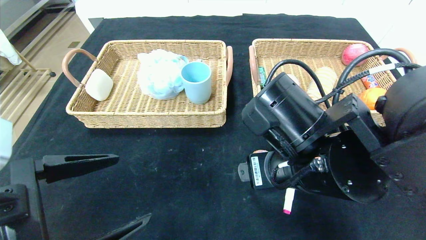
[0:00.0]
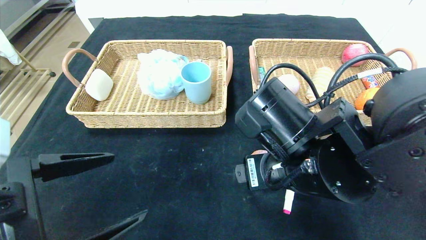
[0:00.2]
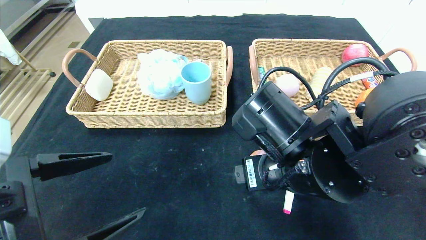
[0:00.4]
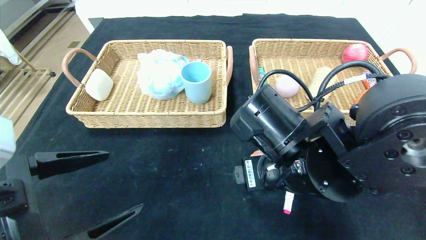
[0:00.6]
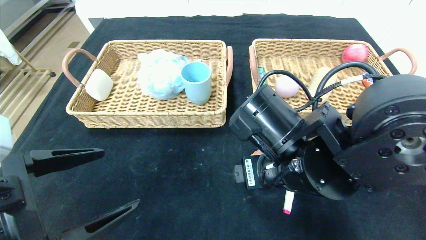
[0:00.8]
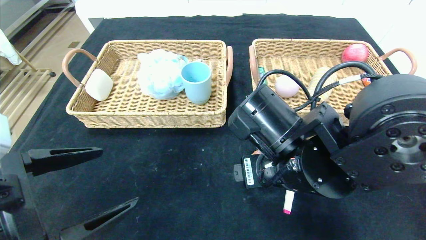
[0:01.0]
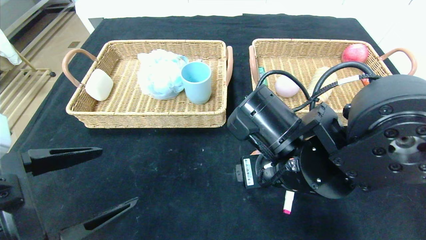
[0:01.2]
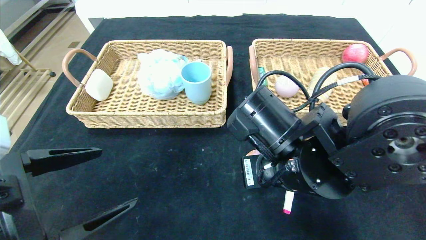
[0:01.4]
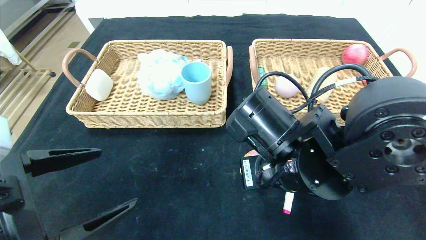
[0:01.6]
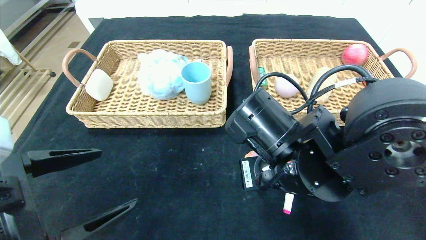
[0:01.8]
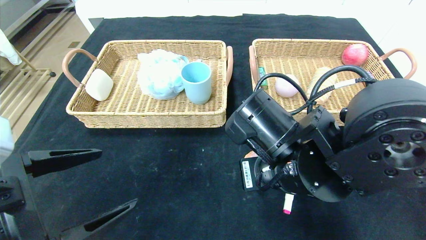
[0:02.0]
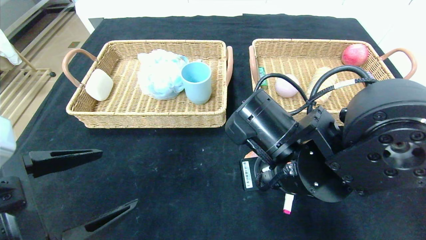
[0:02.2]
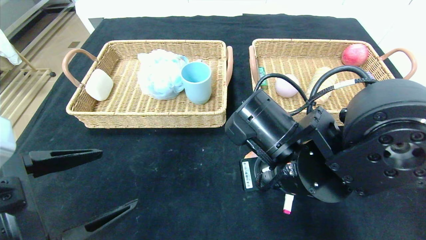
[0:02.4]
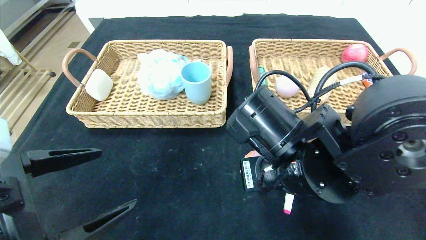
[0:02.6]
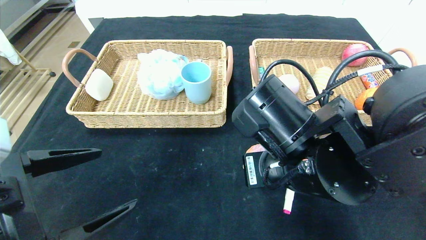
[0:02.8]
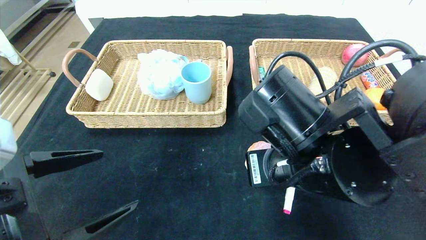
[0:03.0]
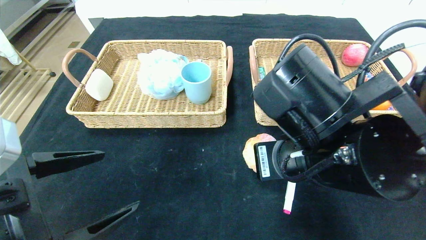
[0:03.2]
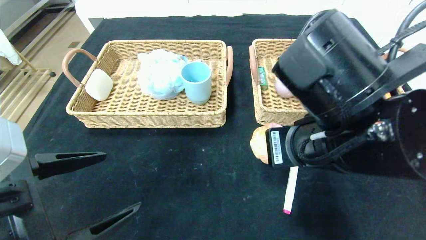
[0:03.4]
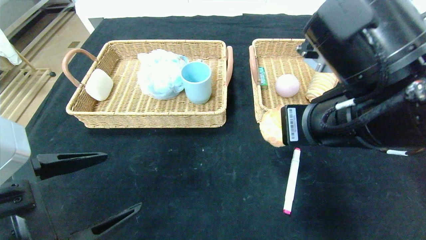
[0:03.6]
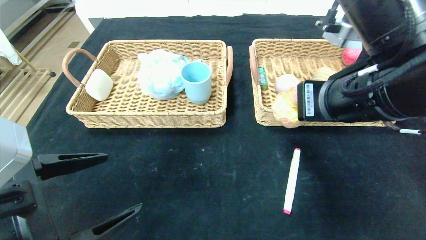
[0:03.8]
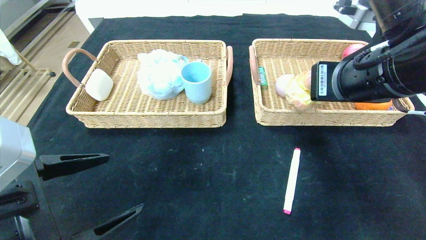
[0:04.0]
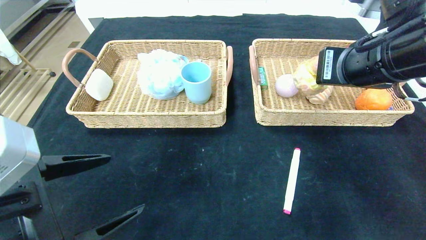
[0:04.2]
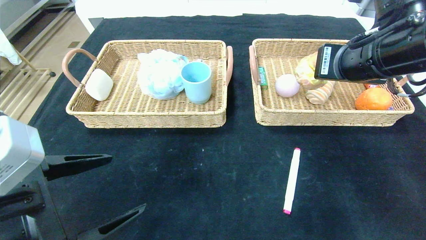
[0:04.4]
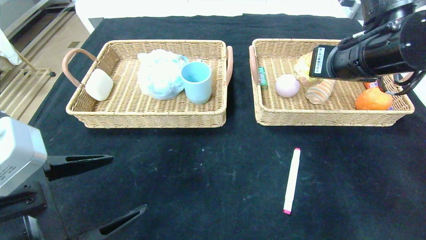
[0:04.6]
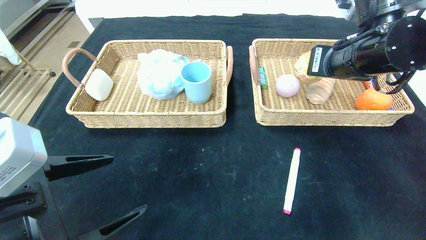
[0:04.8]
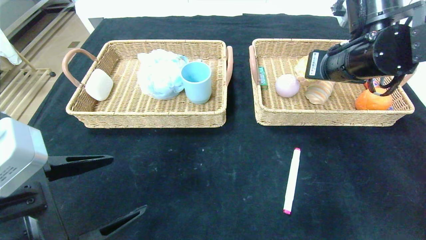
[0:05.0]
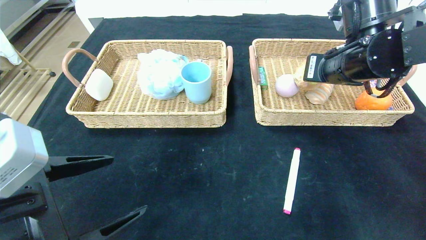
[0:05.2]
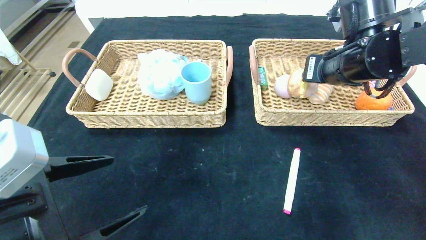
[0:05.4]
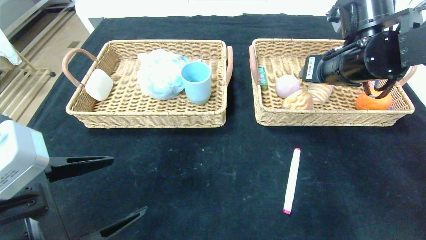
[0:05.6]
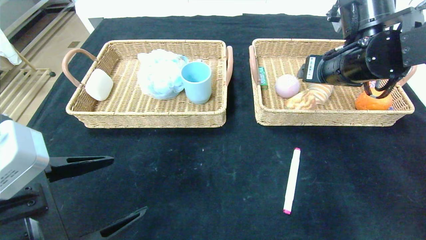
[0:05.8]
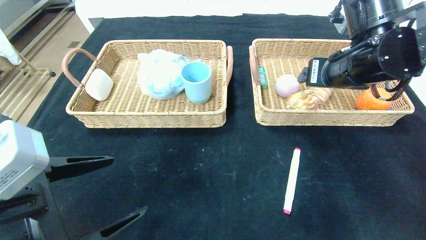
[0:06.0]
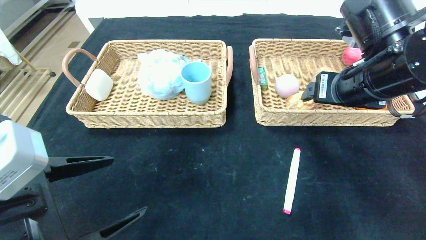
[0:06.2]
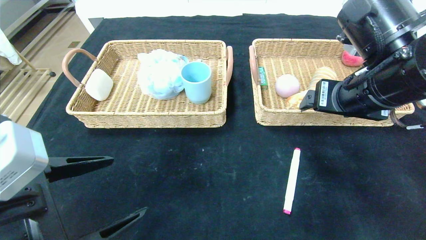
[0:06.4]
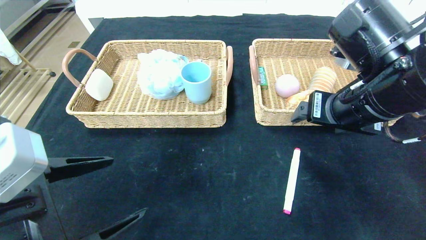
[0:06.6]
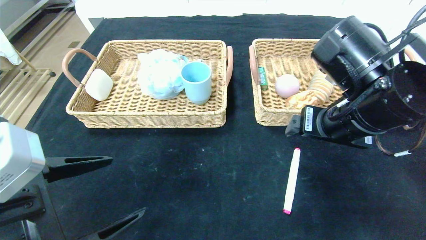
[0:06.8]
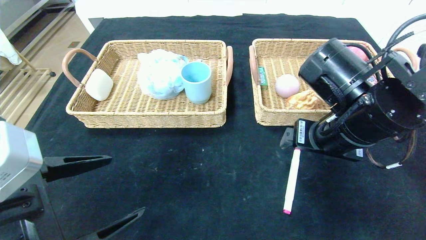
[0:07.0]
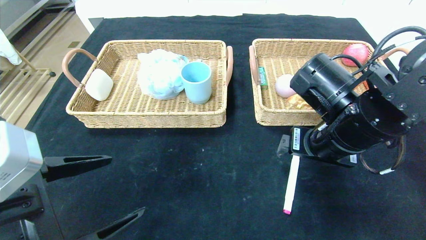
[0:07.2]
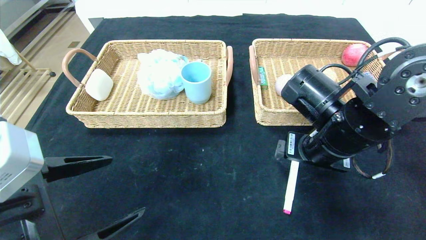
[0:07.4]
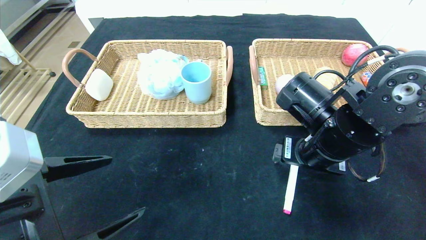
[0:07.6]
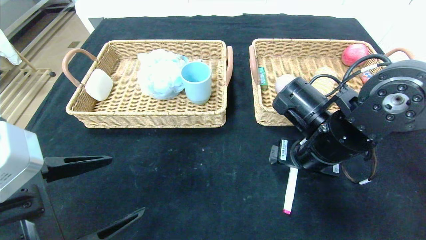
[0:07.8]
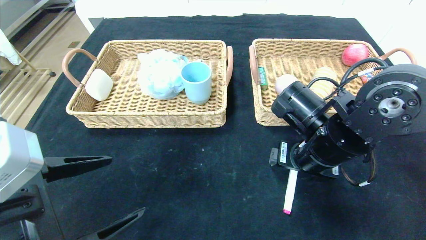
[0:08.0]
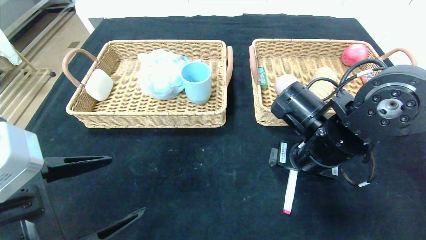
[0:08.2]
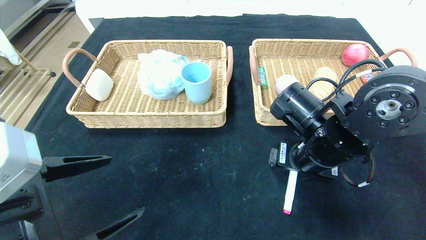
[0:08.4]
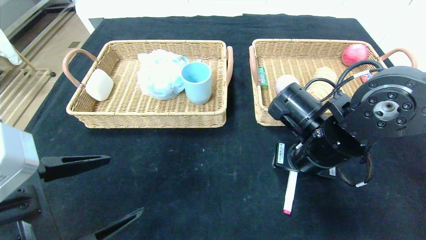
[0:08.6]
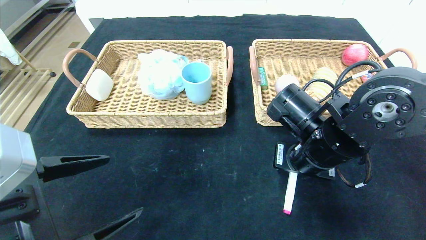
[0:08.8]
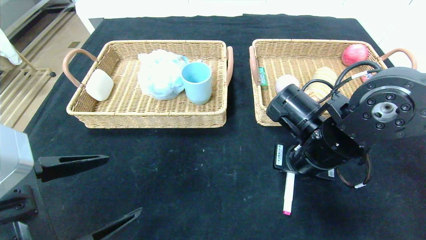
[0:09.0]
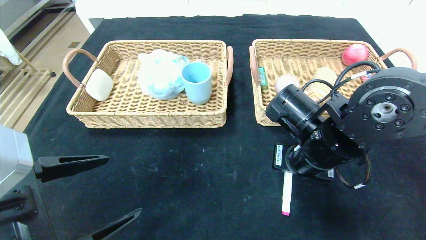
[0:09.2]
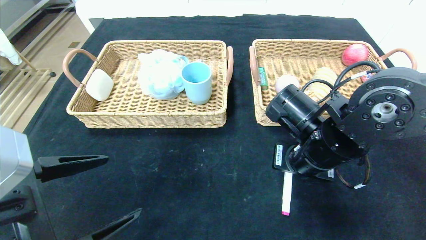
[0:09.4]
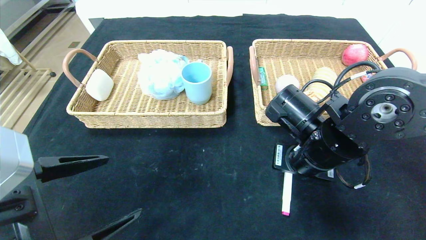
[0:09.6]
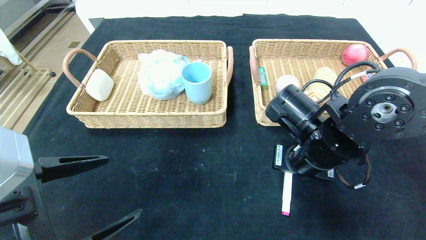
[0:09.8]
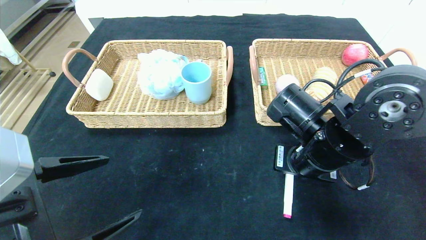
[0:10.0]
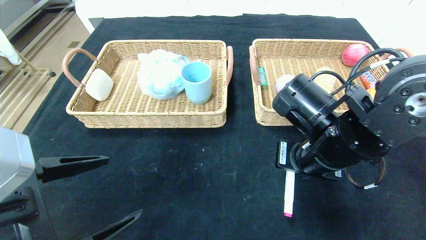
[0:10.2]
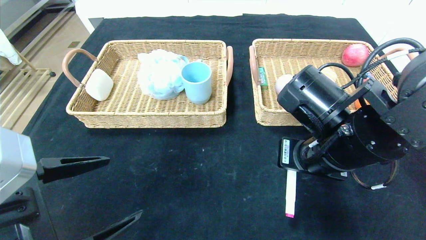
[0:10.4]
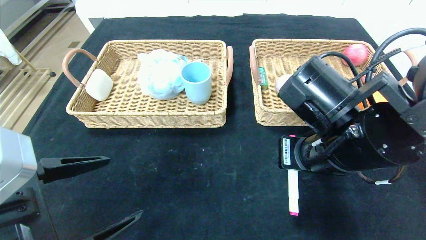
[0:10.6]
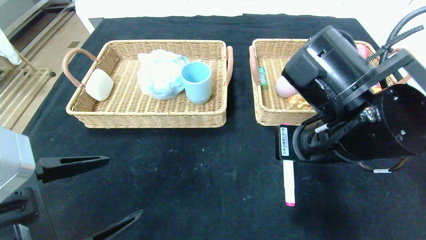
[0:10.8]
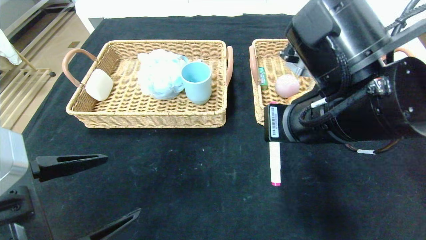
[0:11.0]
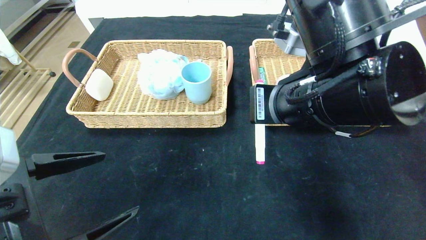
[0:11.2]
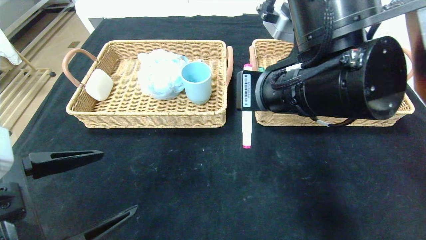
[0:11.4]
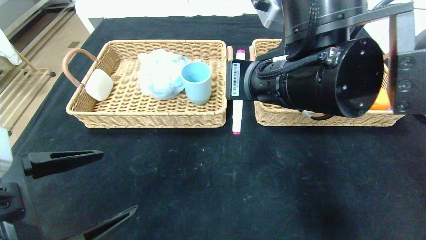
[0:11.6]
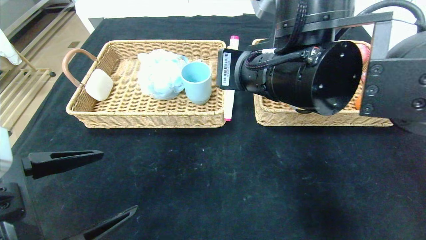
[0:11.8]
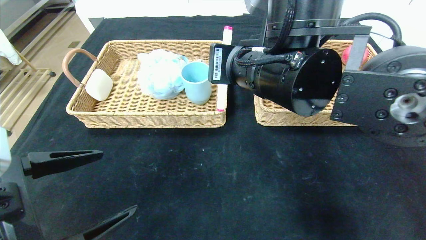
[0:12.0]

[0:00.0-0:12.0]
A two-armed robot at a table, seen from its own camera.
Step, 0:00.0 to 0:07.0: Pick up the round bread and put it in the right basket.
0:00.0 to 0:01.6: The right gripper closes up.
0:01.6 to 0:03.0: The grippers stay close to where they were, moving slightly.
0:03.0 to 0:04.4: The right gripper moves to the right, upward and forward, about 15 cm.
0:04.4 to 0:06.0: The right gripper opens its fingers.
0:06.0 to 0:07.6: The right gripper heads downward, covering roughly 10 cm.
0:07.6 to 0:09.0: The right gripper closes its fingers.
0:09.0 to 0:10.4: The right gripper changes place by roughly 5 cm.
0:10.4 to 0:12.0: The right gripper shifts about 10 cm to the left and upward.

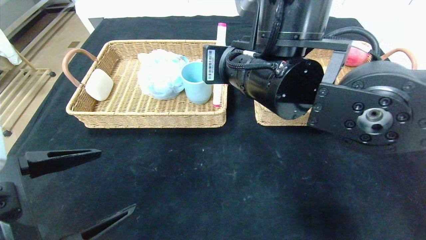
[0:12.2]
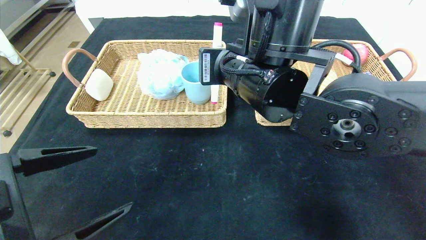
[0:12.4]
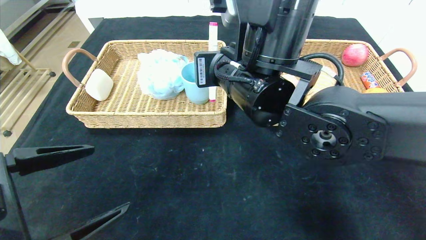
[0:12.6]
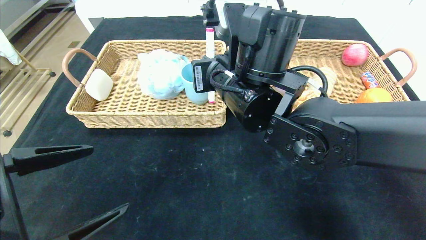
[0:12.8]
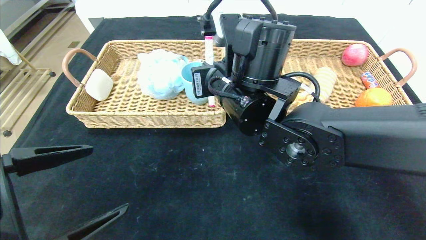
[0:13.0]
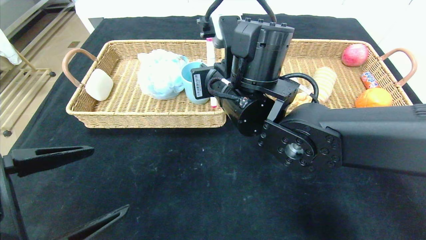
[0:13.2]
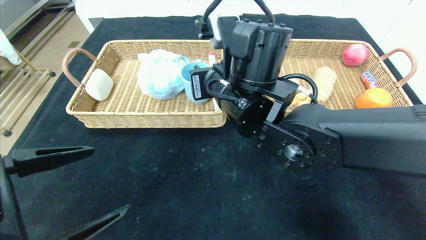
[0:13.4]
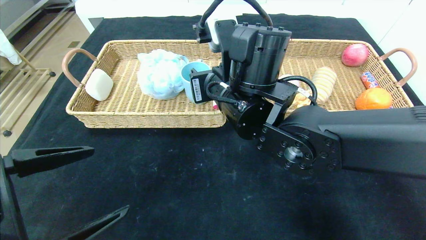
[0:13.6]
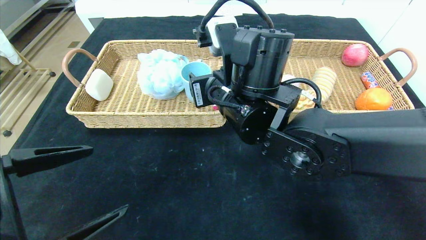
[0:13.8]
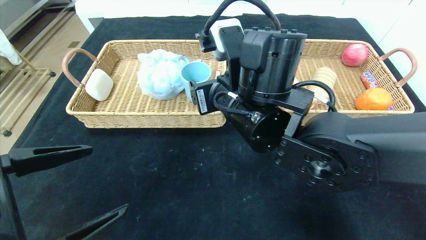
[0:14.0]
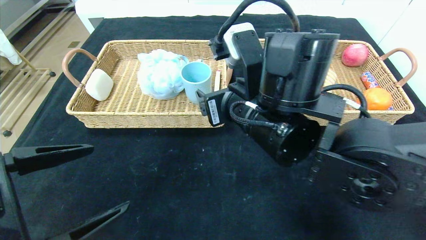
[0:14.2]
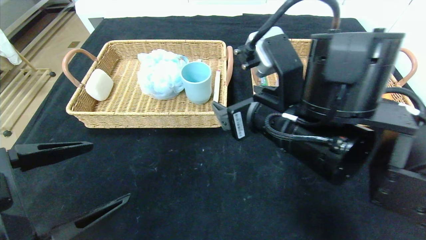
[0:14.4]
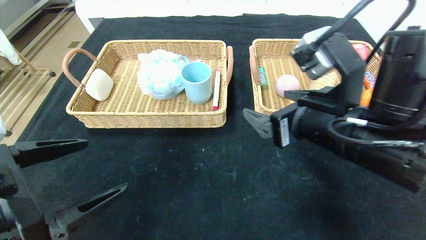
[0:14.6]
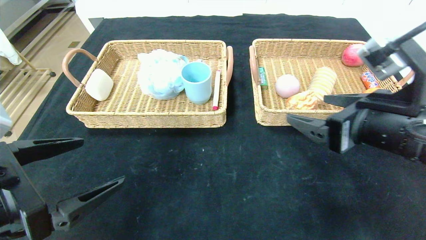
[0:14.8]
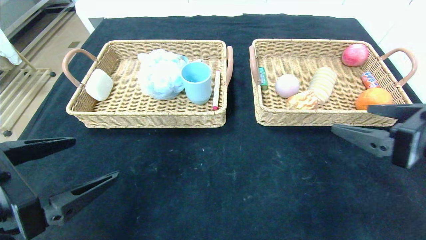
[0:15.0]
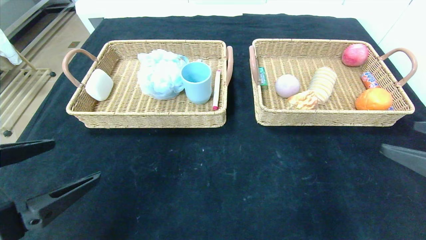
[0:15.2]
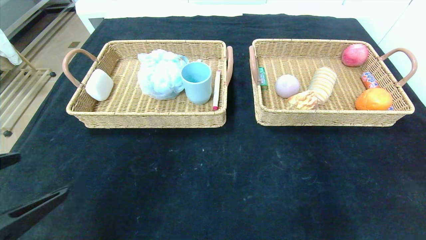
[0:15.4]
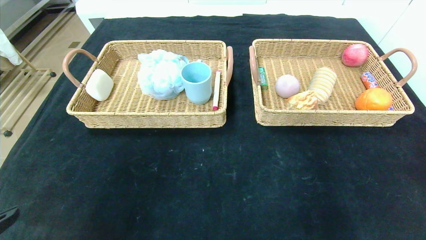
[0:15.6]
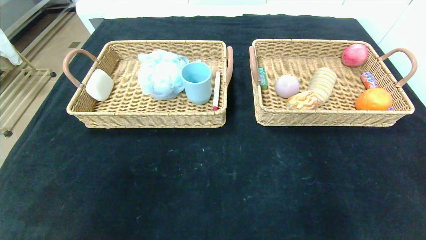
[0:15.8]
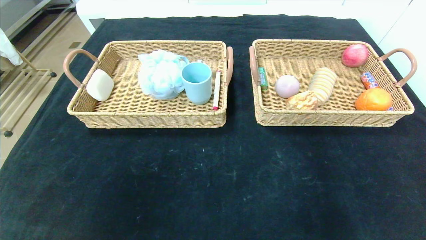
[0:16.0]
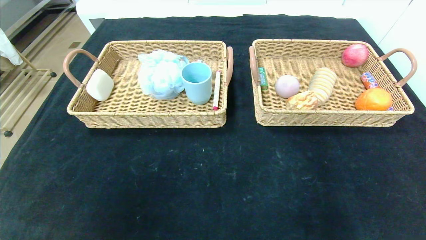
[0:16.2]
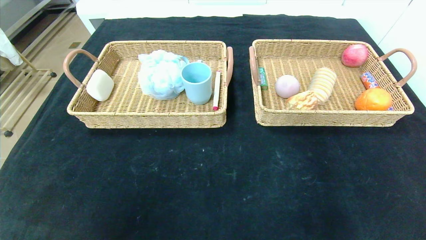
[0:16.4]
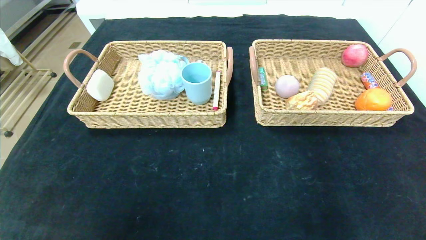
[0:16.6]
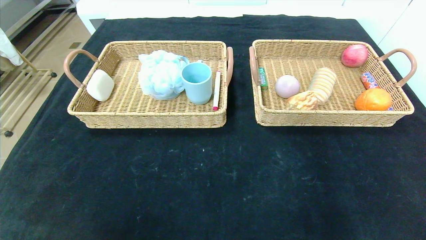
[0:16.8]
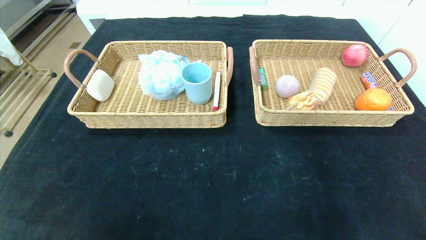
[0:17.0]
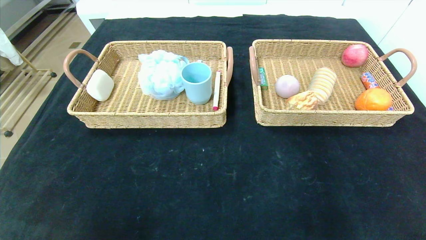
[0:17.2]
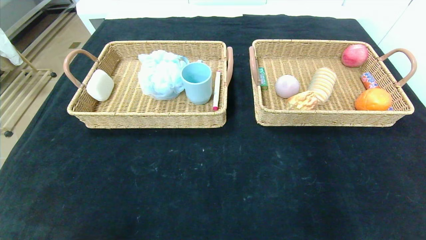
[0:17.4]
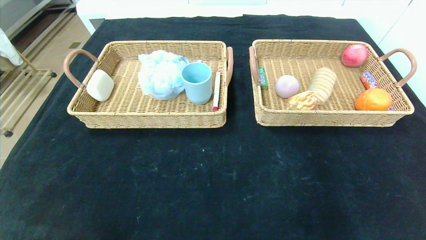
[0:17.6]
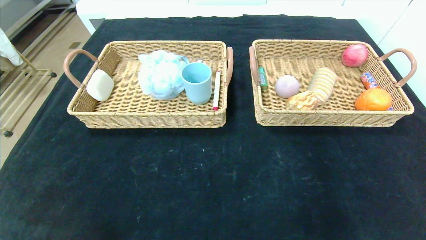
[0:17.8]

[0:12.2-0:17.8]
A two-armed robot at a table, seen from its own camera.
Step, 0:12.2 to 0:15.6: Pick up the pink marker and put it in the left basket.
0:12.2 to 0:13.6: The right gripper changes place by some 5 cm, and opens.
0:13.6 to 0:15.0: The right gripper heads to the right and backward, covering about 30 cm.
0:15.0 to 0:16.4: Both grippers move backward, approximately 20 cm.
